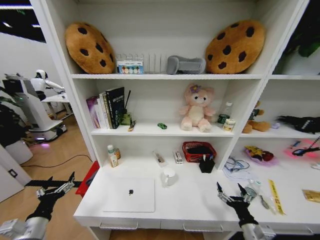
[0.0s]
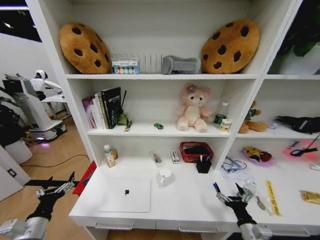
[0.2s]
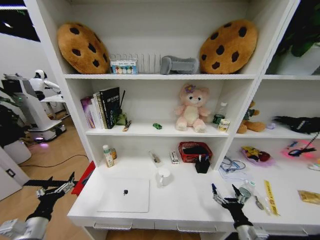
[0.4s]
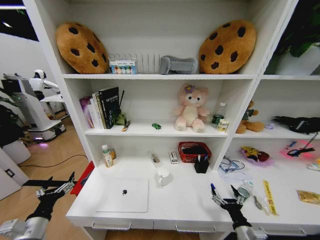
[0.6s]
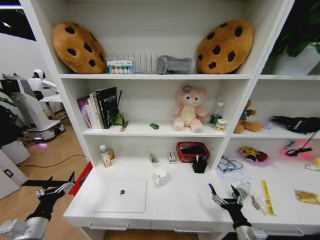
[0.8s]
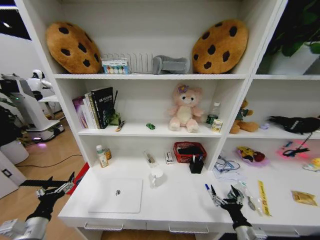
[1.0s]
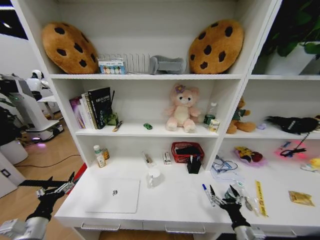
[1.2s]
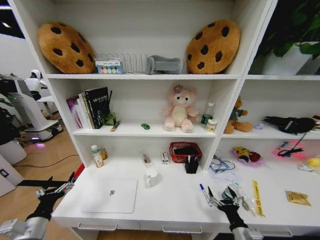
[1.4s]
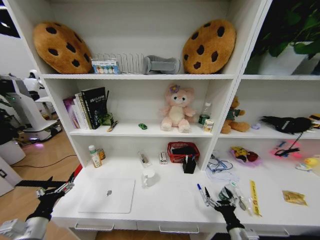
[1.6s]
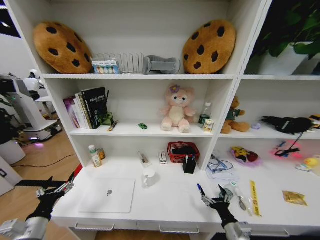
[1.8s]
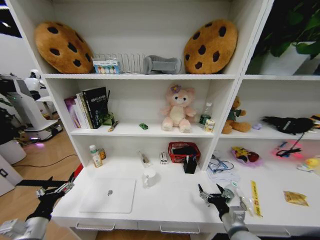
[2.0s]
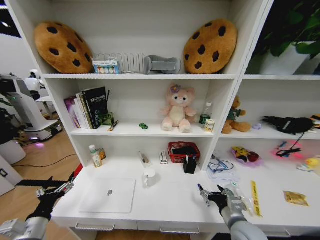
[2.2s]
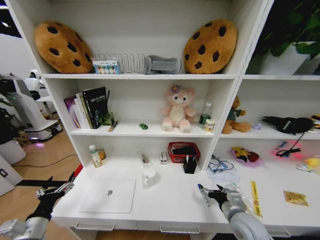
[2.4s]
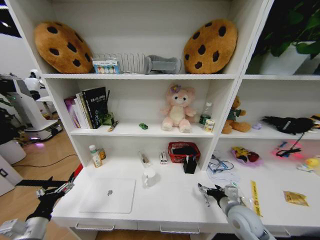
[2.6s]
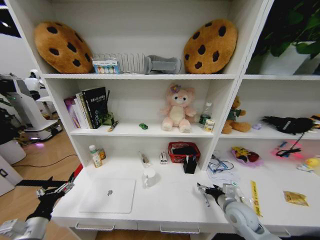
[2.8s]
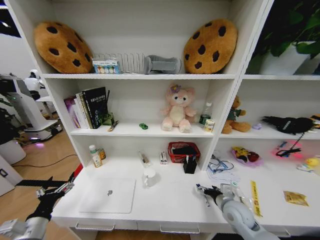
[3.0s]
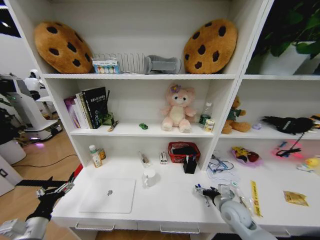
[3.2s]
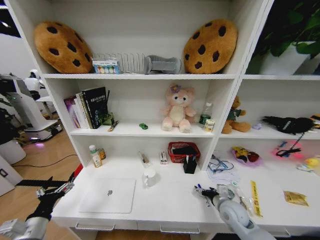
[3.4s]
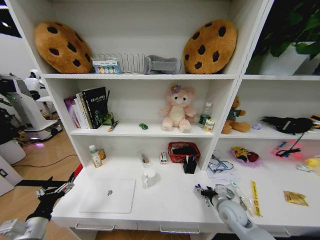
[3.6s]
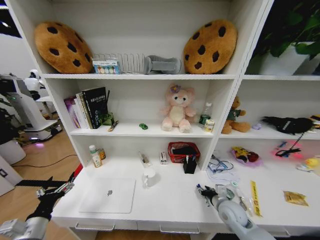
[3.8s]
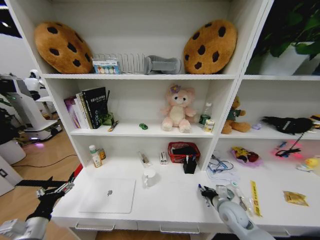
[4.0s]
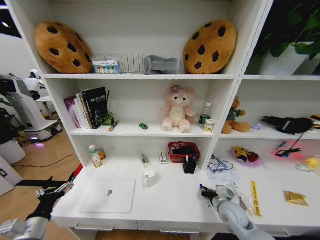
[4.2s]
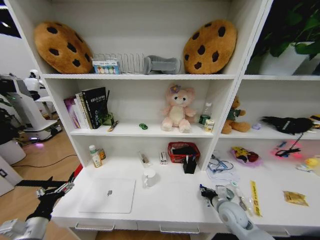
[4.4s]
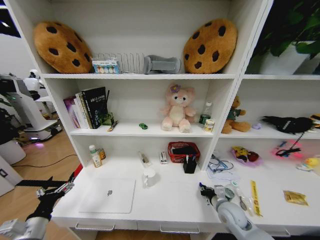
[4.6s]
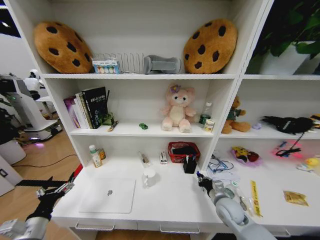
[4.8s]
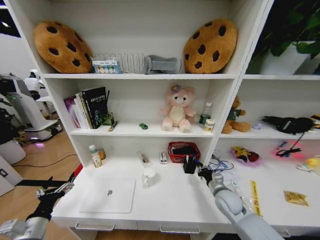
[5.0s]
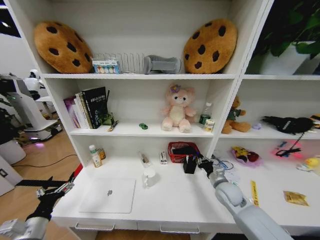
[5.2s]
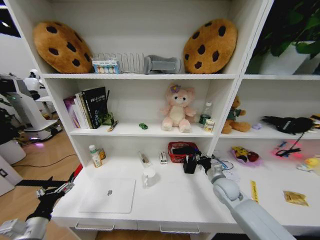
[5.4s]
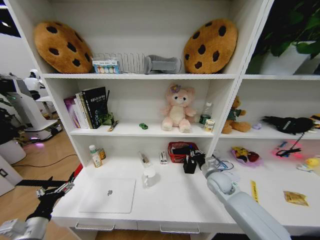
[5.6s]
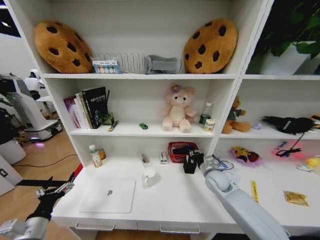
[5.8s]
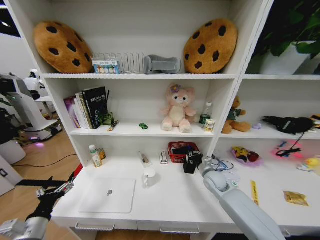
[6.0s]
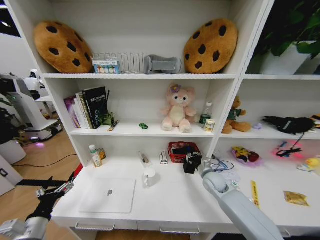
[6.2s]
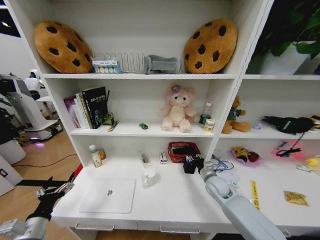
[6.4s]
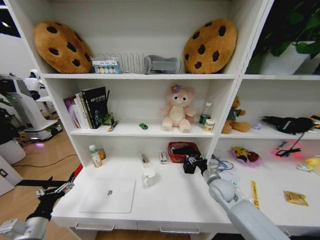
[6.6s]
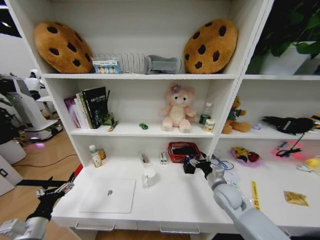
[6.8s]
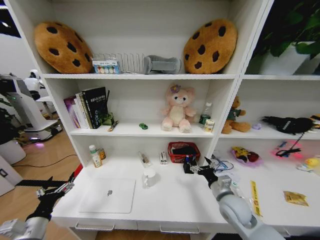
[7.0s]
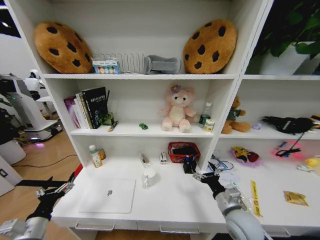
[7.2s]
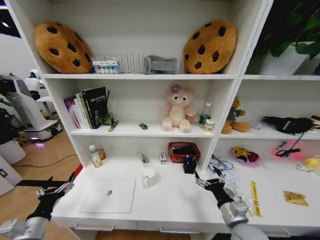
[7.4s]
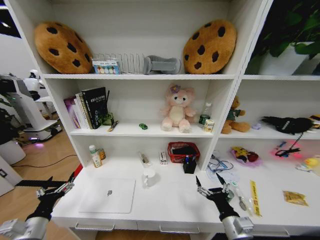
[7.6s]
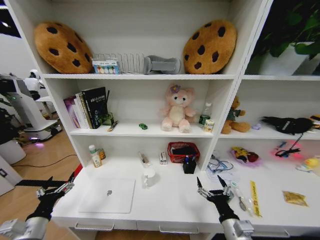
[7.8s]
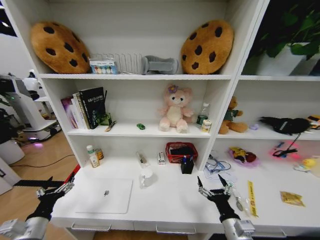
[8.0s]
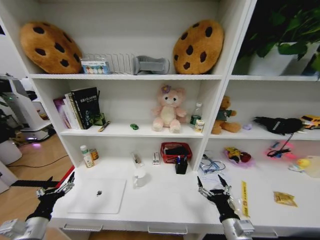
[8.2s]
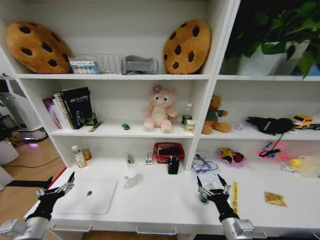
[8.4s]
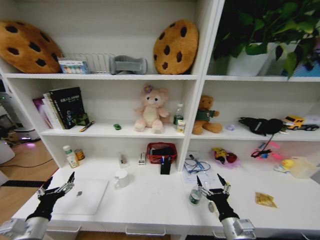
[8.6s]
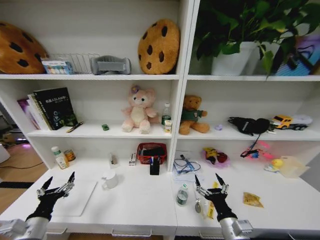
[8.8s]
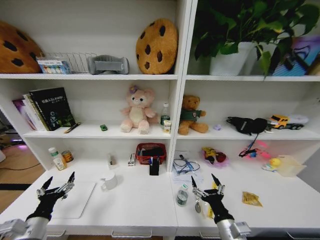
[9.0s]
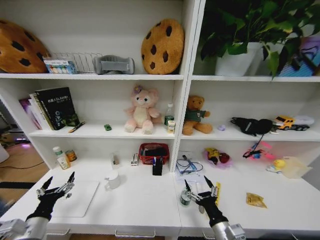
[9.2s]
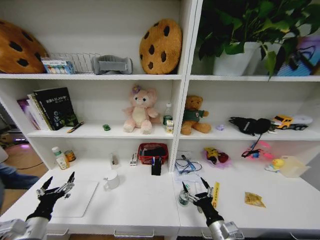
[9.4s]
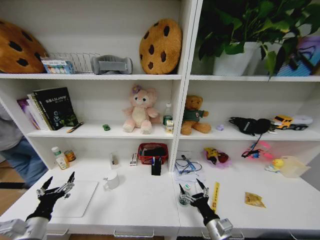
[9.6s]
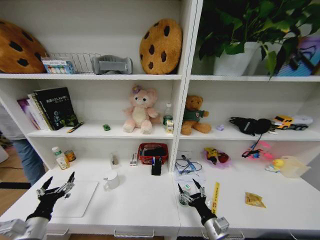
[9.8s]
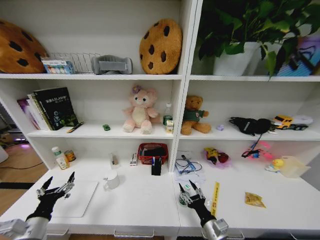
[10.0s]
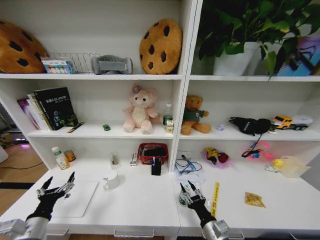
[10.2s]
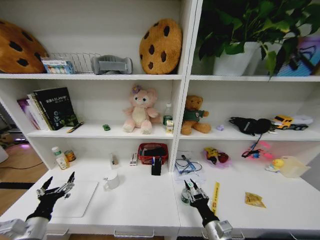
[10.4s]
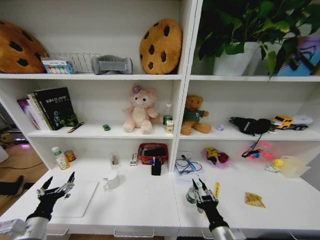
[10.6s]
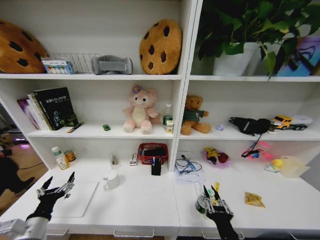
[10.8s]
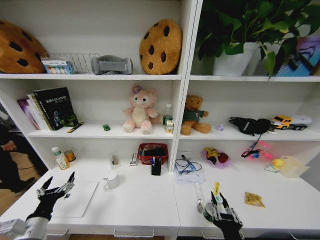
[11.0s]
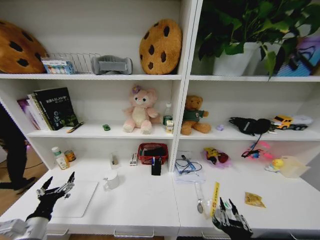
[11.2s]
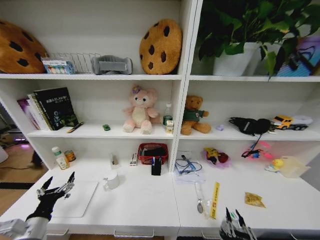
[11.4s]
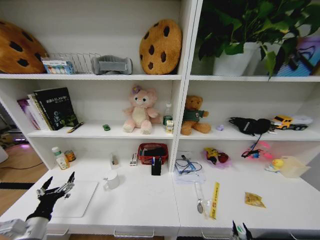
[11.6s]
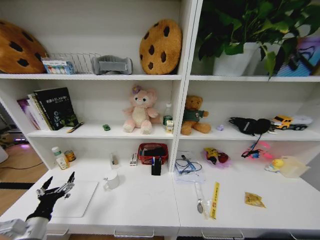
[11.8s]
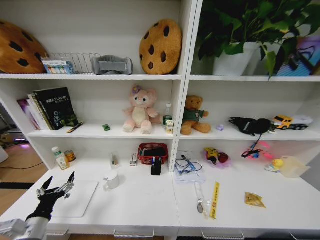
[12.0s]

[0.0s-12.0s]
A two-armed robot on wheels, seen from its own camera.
Task of the whole recording: Organize the objects on the table.
1.6s to 3.0s: The right gripper is displaced forward by roughly 15 cm.
3.0s to 4.4s: The right gripper closes up.
4.4s to 6.0s: The right gripper is displaced forward by about 15 cm.
6.0s to 7.6s: The right gripper is displaced backward by approximately 25 cm, and opens up.
9.0s to 10.4s: The right gripper closes up.
10.4s to 12.0s: The right gripper heads backward, covering about 20 cm.

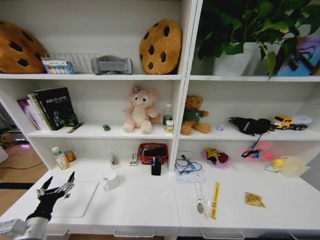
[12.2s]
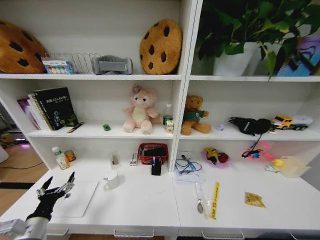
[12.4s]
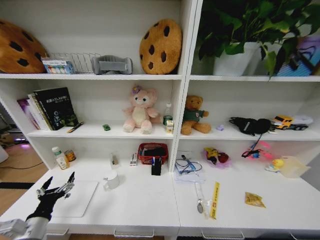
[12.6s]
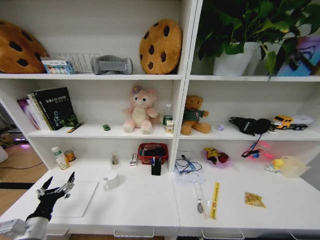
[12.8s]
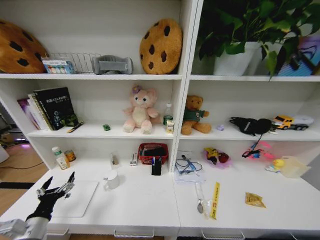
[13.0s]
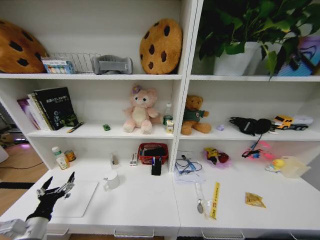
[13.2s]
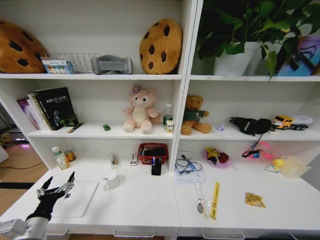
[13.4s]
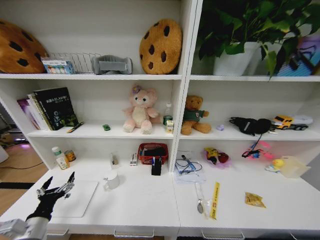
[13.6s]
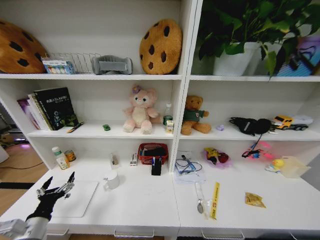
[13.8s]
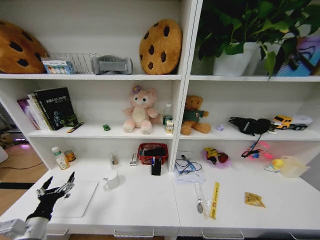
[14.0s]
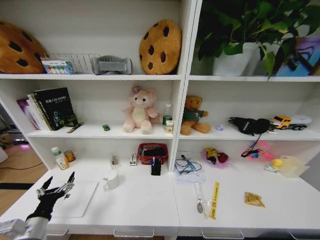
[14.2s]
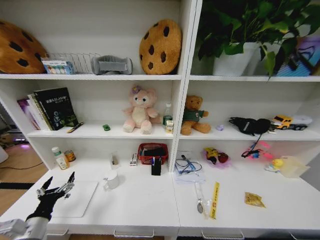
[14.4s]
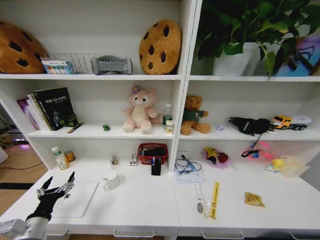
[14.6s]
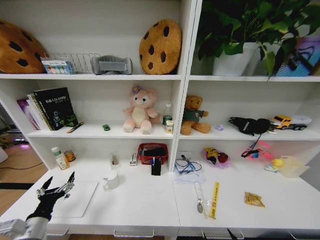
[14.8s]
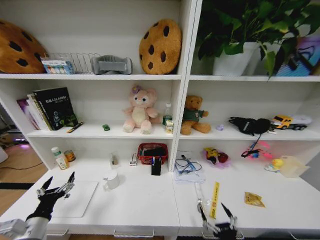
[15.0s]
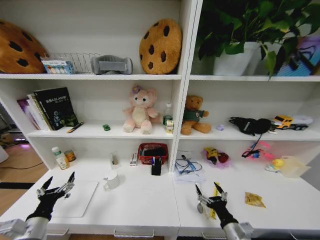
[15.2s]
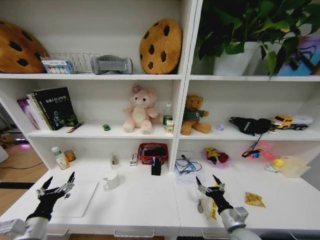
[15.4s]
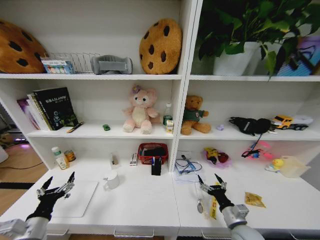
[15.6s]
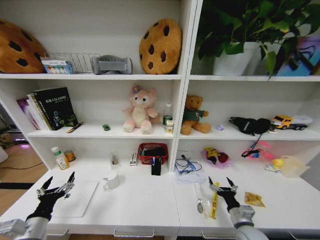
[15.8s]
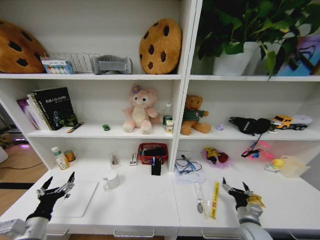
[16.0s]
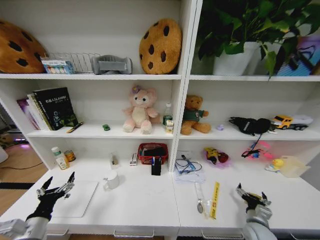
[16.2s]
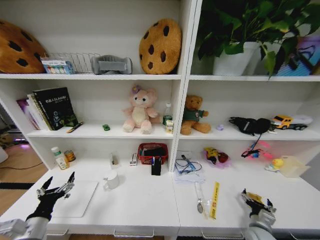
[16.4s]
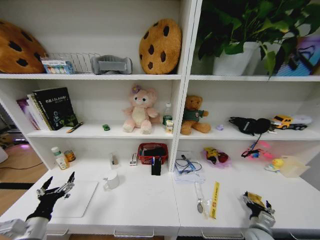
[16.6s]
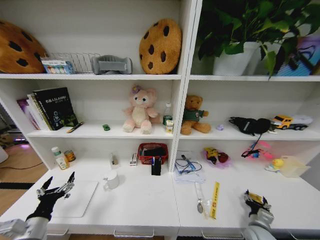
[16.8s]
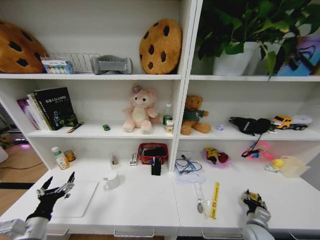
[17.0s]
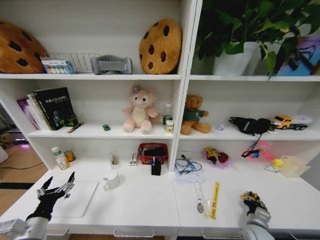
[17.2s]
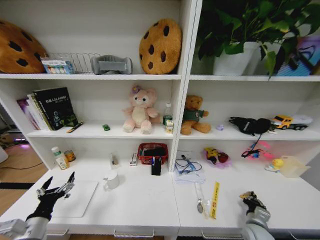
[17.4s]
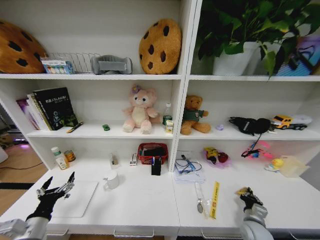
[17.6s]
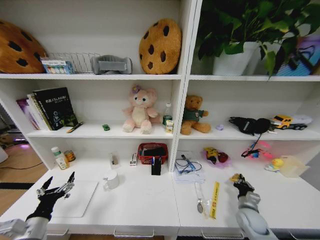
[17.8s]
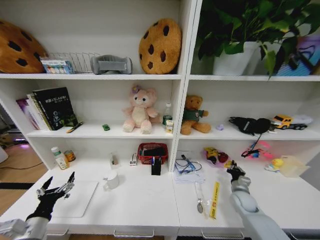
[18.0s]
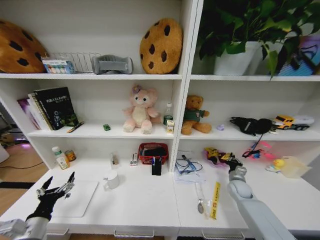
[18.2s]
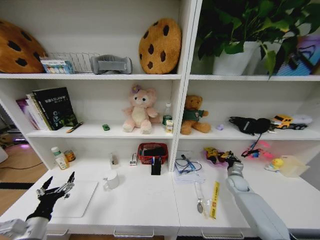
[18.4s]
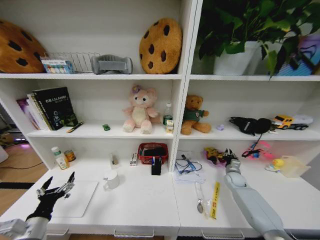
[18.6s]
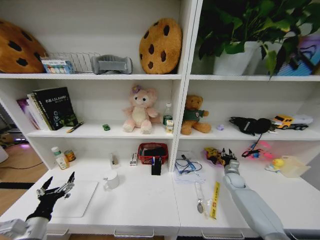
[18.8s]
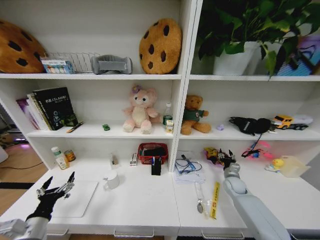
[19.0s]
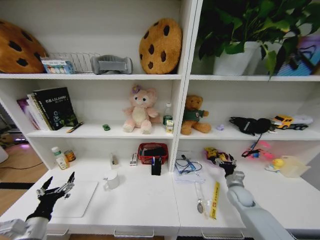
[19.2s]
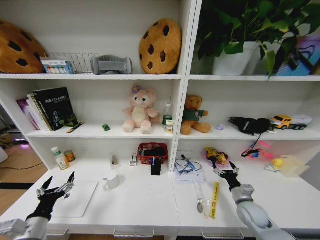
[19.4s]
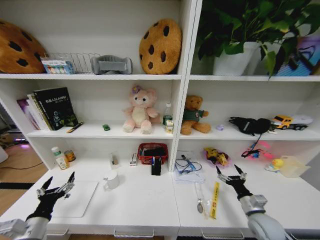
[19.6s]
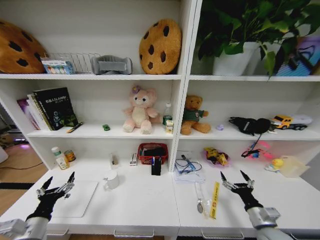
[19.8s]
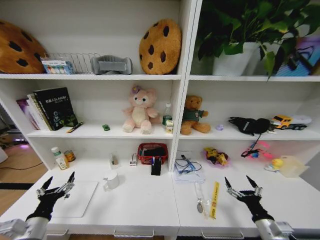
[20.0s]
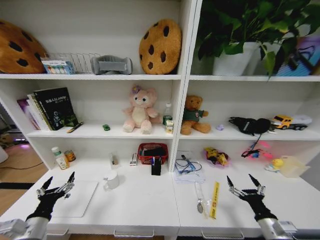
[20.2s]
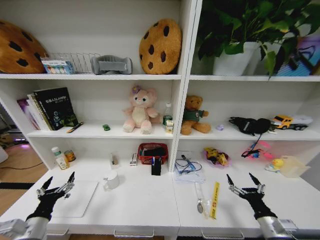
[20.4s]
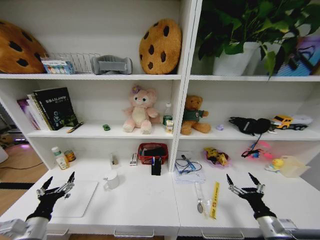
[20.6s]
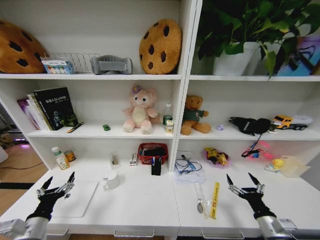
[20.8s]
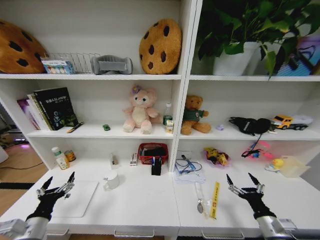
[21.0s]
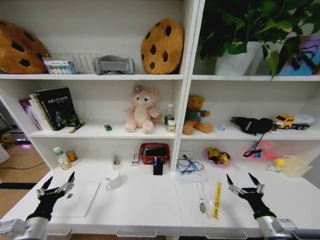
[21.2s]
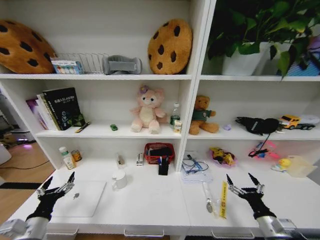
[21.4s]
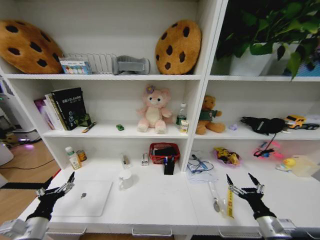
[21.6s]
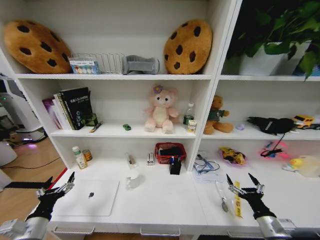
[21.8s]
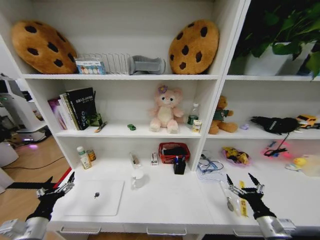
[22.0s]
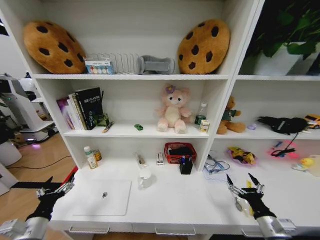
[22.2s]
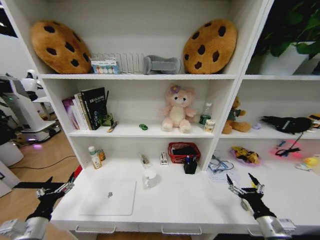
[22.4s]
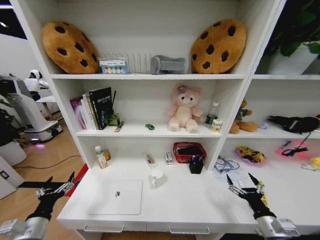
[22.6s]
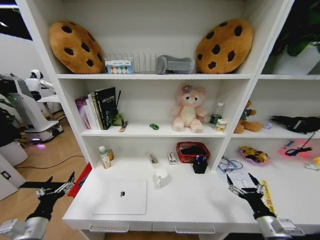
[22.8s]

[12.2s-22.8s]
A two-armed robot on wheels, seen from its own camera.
Task of the whole recording: Organize the objects on the table.
13.8s to 15.2s: The right gripper goes about 30 cm upward and forward.
15.2s to 16.8s: The right gripper travels to the right, downward and forward by some 20 cm.
16.8s to 18.2s: The right gripper heads forward, covering about 20 cm, and closes.
18.2s to 19.8s: The right gripper shifts roughly 20 cm backward, and opens its fingers.
19.8s to 21.2s: There are only small adjustments of the grippers.
